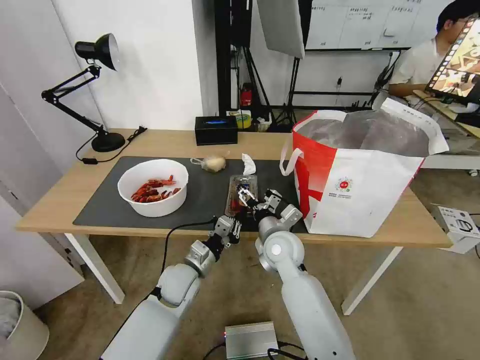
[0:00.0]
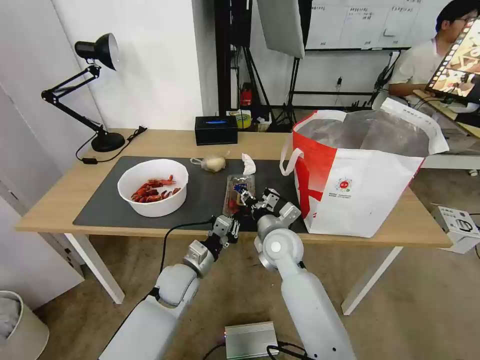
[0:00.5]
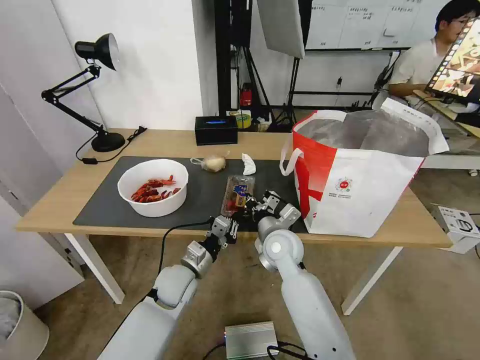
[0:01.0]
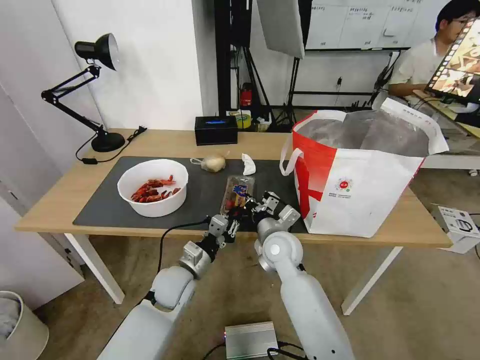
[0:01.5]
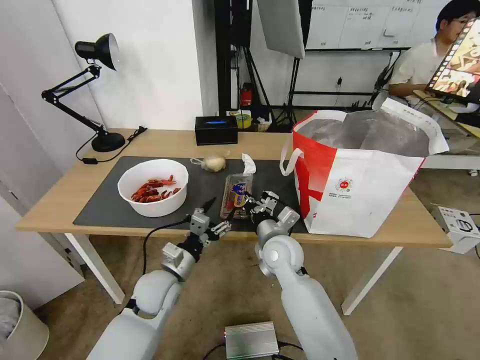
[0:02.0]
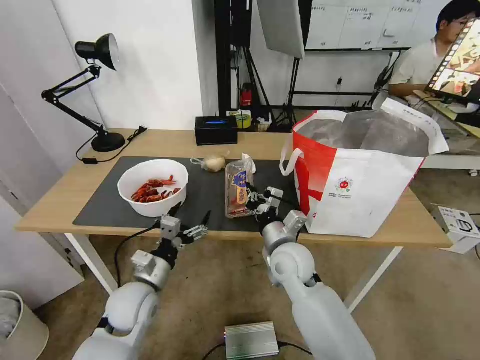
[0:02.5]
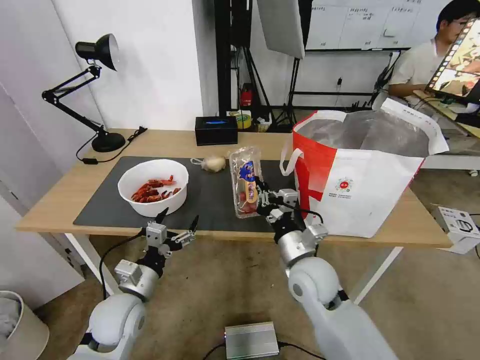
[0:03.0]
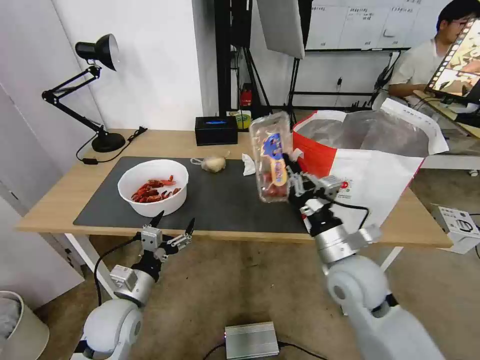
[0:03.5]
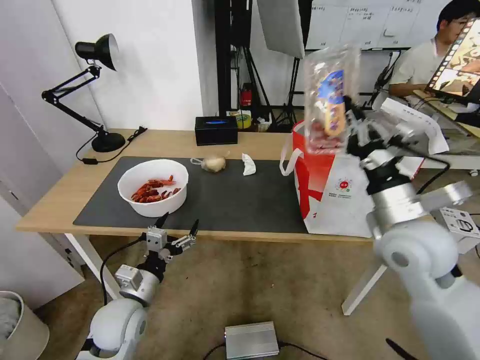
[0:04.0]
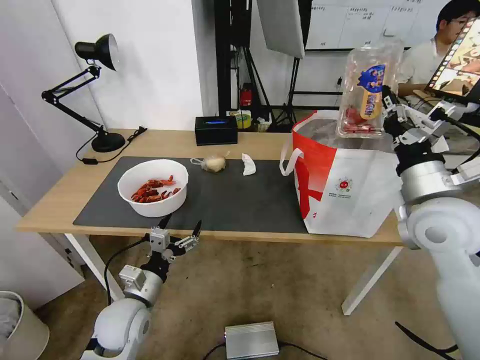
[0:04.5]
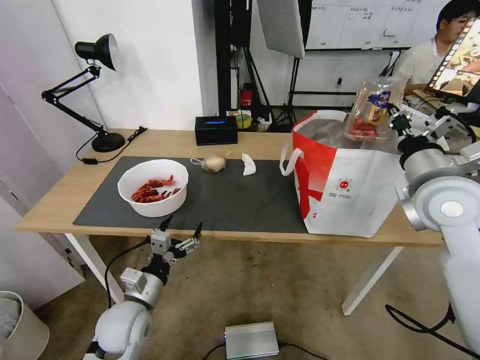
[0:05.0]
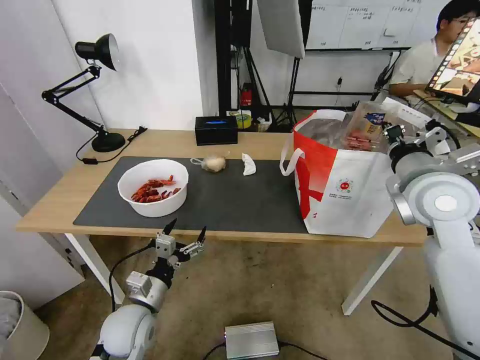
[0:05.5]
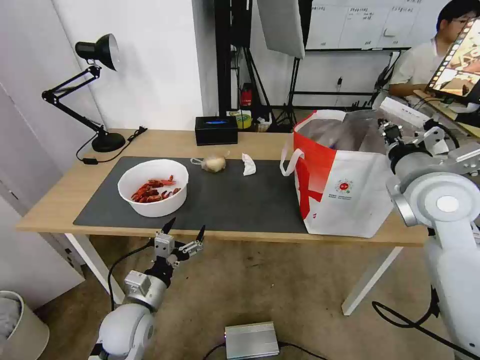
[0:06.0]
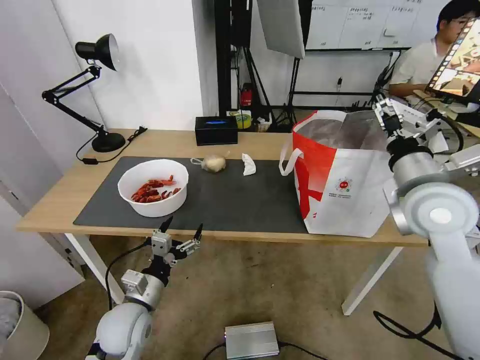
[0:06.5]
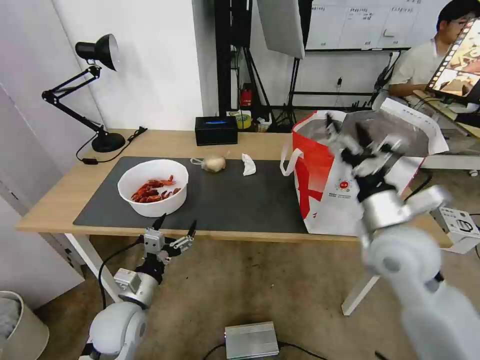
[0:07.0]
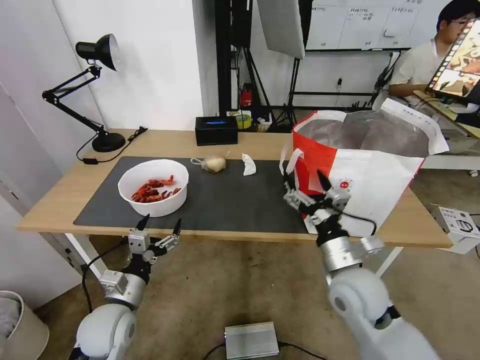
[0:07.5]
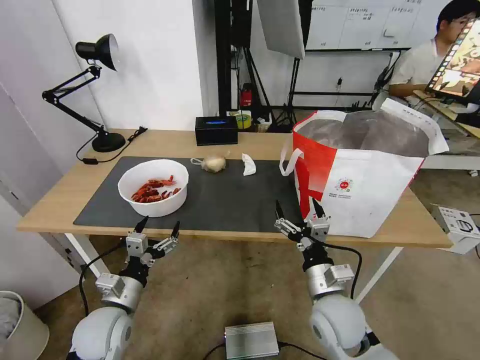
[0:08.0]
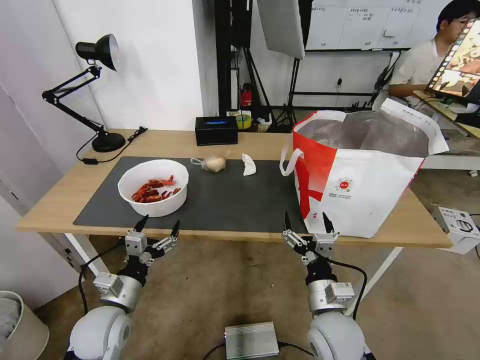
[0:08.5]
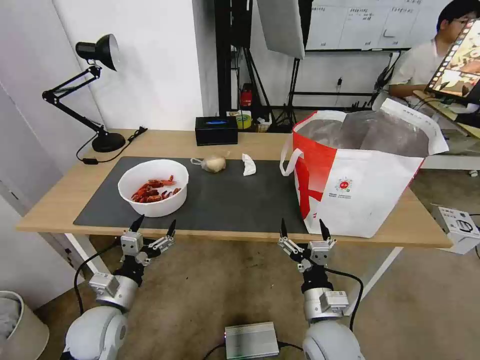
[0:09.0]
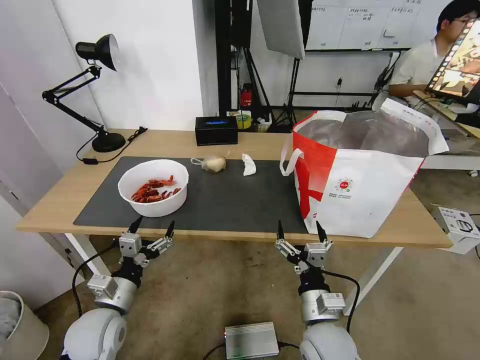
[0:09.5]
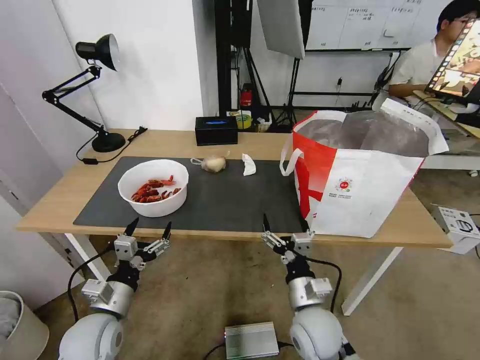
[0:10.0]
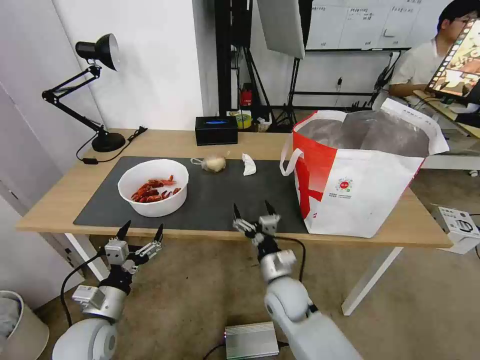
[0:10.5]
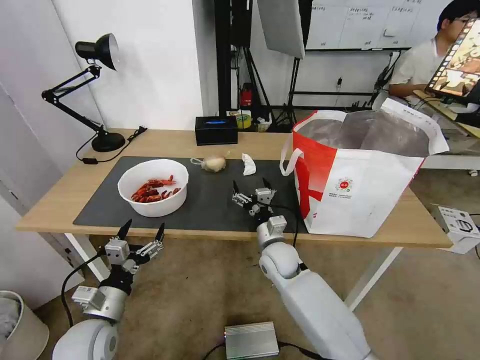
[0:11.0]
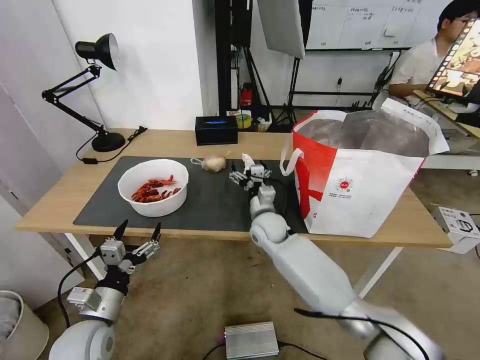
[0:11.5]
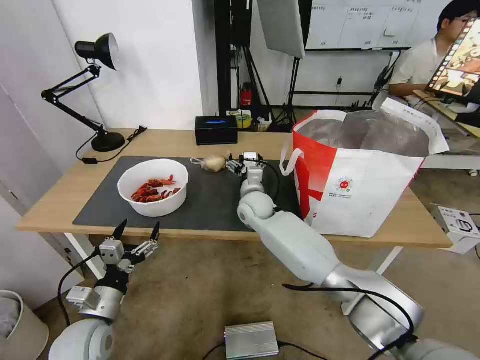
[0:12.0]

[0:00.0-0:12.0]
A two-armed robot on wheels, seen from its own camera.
Task of the whole recording: Pick up the trash from the table and place it into the takeout bag.
0:00.0 to 0:02.0: The right gripper closes its fingers, while the left gripper changes place by roughly 5 cm, and opens.
0:02.0 to 0:04.0: The left gripper shifts approximately 10 cm backward and to the left. Meanwhile the right gripper heads to the right, upward and backward, covering about 25 cm.
0:04.0 to 0:06.0: The right gripper travels upward and forward by about 10 cm.
0:06.0 to 0:08.0: The right gripper travels downward, to the left and backward by approximately 30 cm, and opens its fingers.
0:08.0 to 0:10.0: The right gripper shifts by approximately 5 cm.
0:10.0 to 0:12.0: The right gripper is displaced forward by some 30 cm.

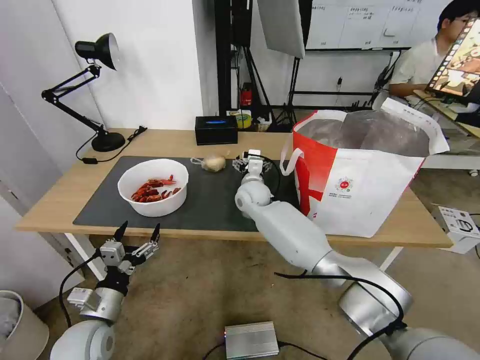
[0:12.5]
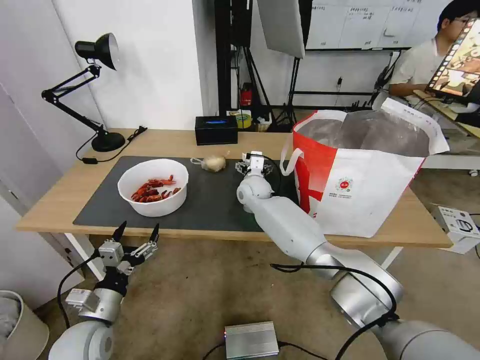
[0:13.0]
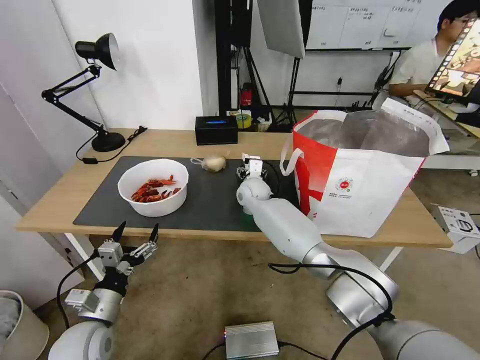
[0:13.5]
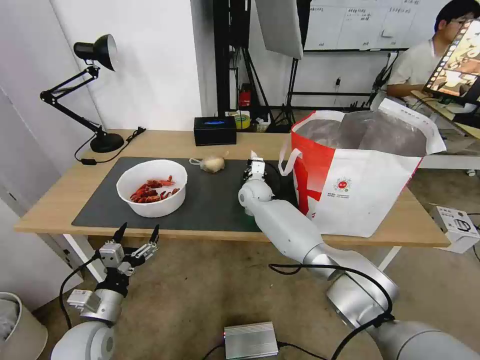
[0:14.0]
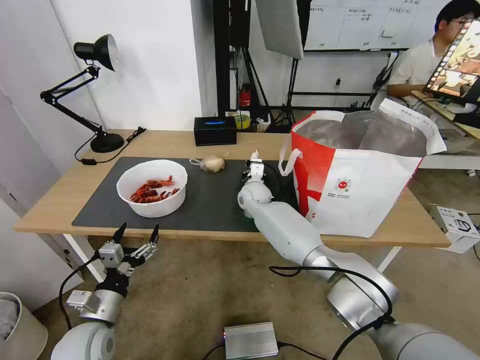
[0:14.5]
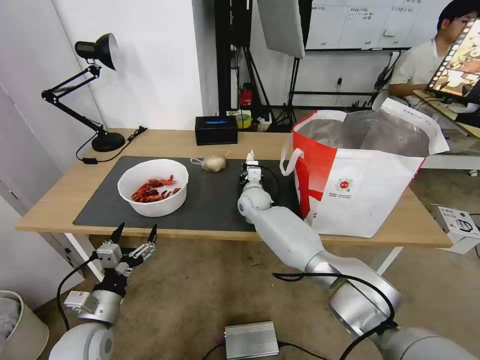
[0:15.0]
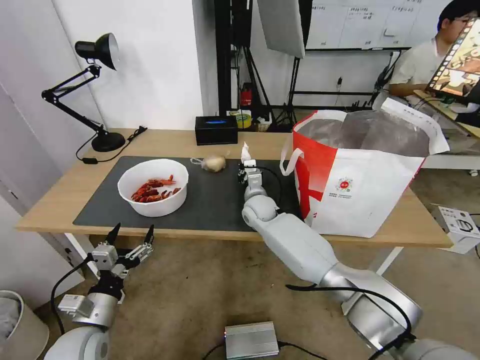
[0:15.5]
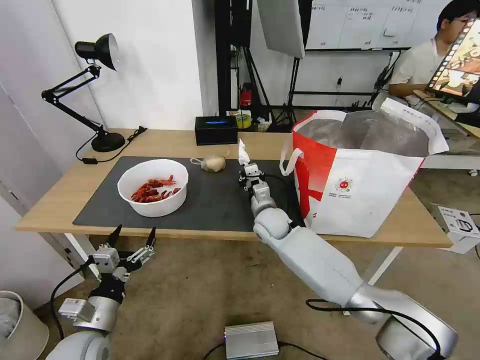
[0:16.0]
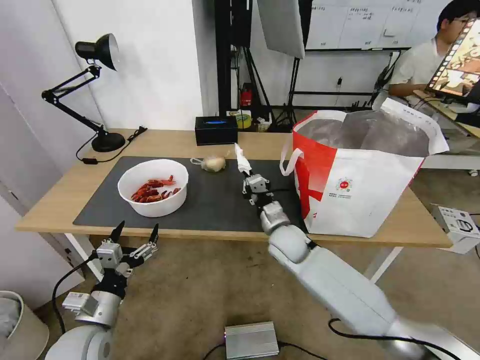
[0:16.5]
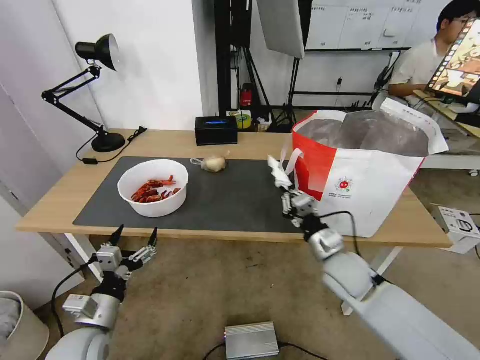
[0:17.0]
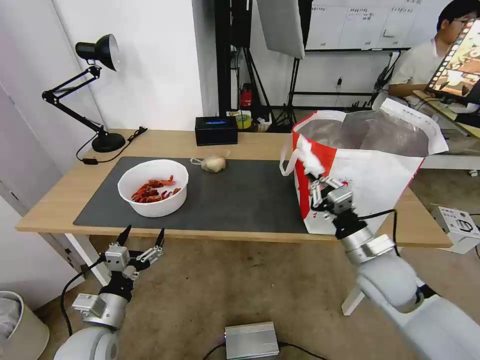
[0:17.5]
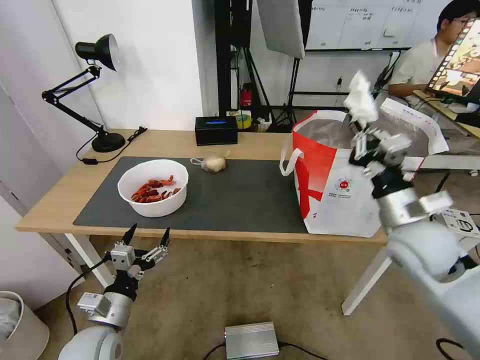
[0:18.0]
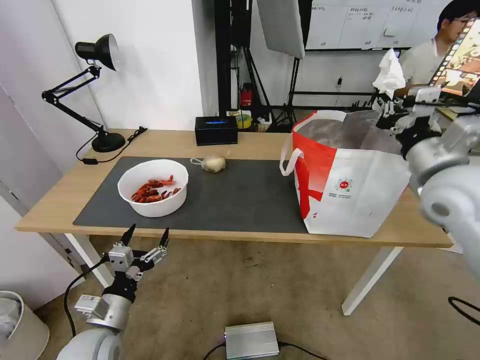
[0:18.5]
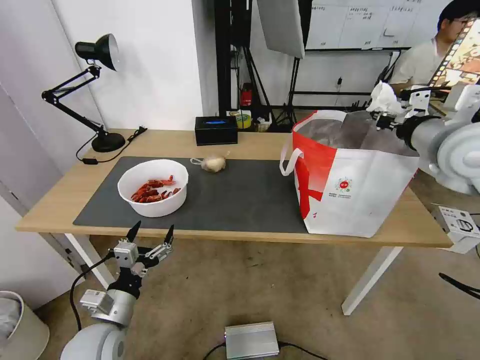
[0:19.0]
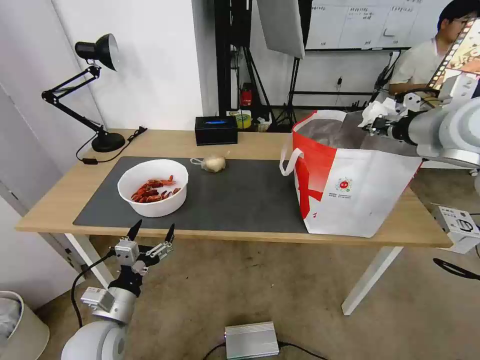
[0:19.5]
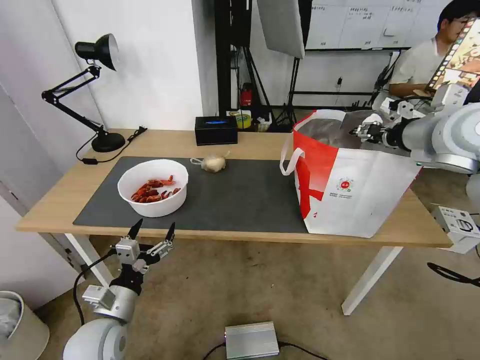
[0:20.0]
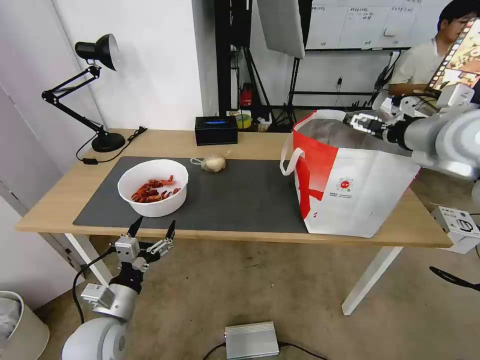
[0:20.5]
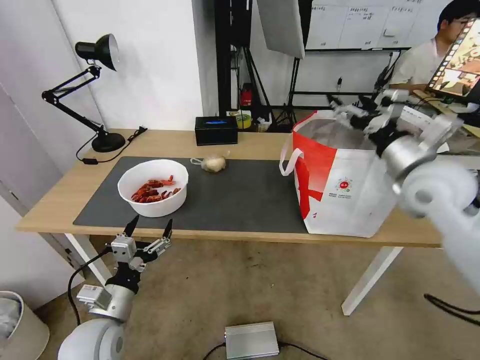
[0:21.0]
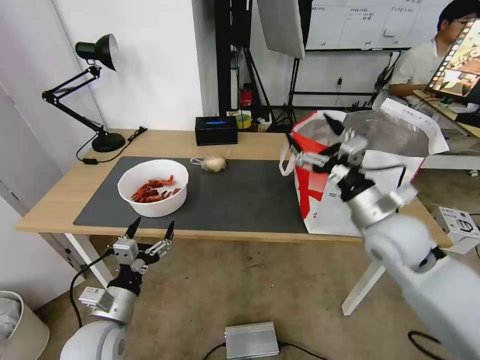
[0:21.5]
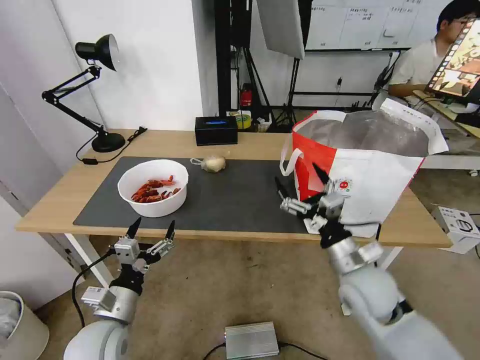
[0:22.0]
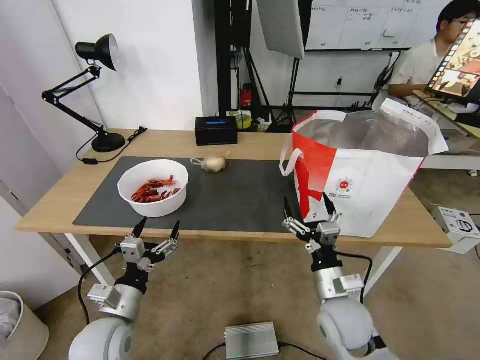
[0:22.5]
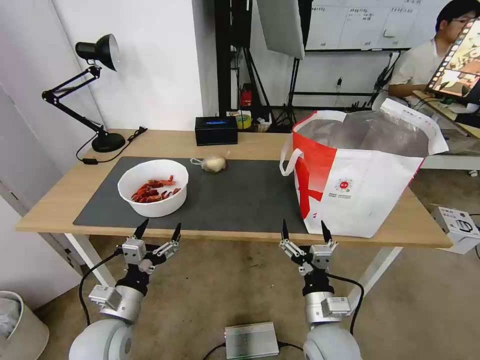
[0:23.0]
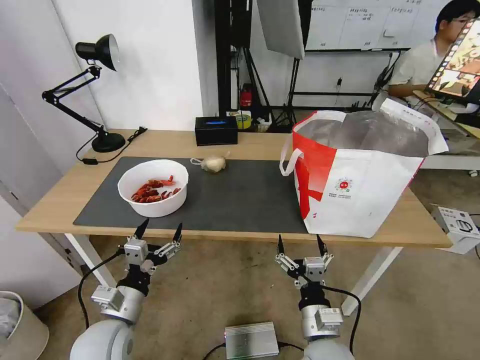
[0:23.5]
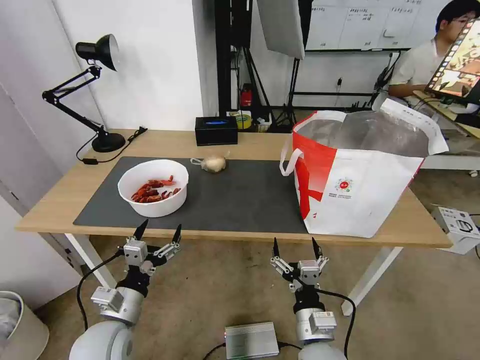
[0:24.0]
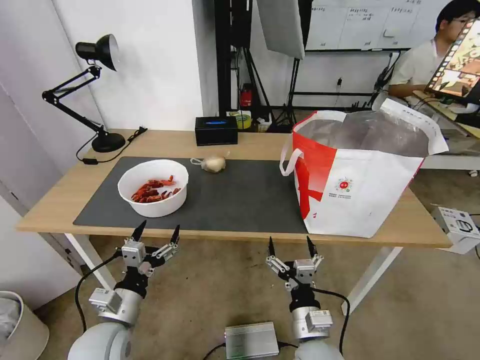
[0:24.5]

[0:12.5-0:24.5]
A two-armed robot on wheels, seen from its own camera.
Task of the whole recording: Pick up the trash from the table and place it into the takeout bag.
0:12.5 to 0:14.5: The right gripper closes its fingers.
0:14.5 to 0:16.5: The right gripper travels backward and to the right by about 15 cm.
0:16.5 to 0:18.5: The right gripper travels upward and to the right by roughly 35 cm.
0:18.5 to 0:20.5: The right gripper moves upward and forward, about 10 cm, and opens.
0:20.5 to 0:22.5: The right gripper shifts approximately 40 cm downward, backward and to the left.
0:22.5 to 0:24.5: The right gripper heads backward and to the left, covering some 10 cm.

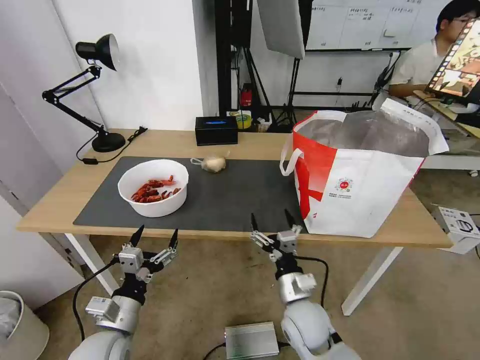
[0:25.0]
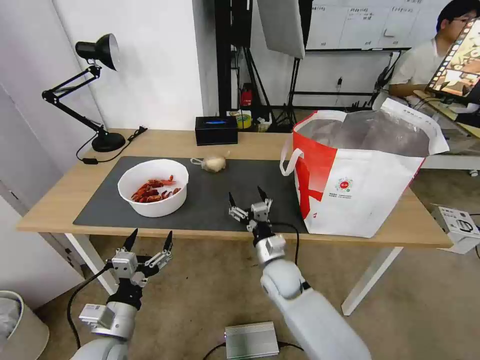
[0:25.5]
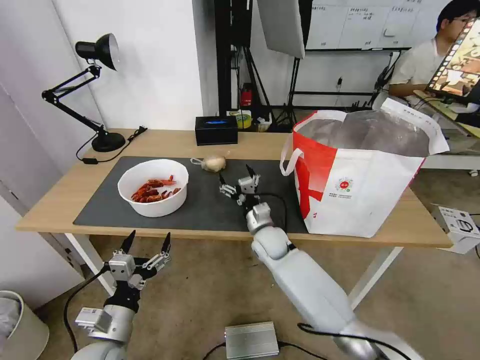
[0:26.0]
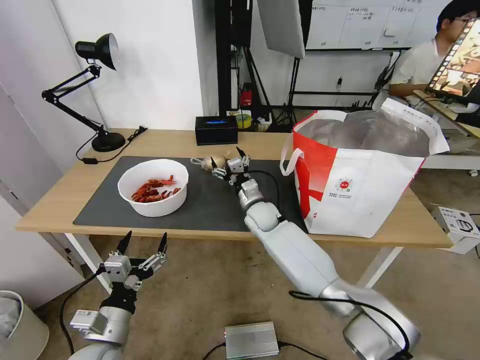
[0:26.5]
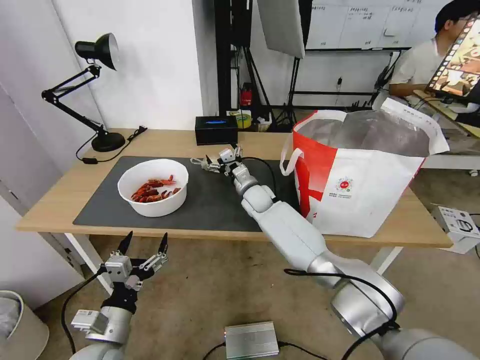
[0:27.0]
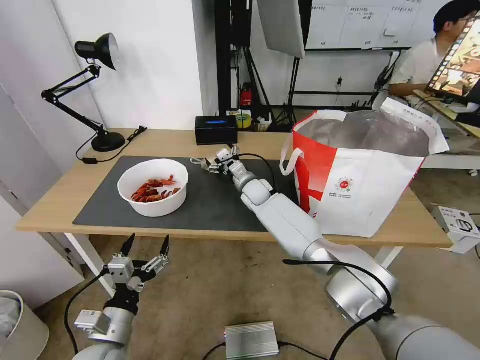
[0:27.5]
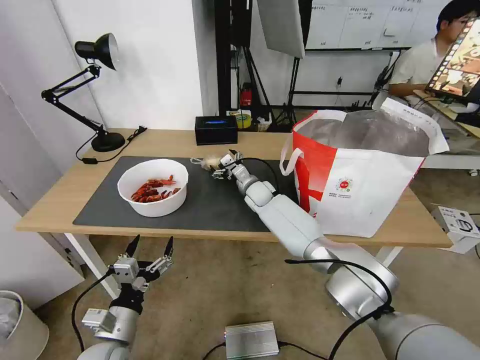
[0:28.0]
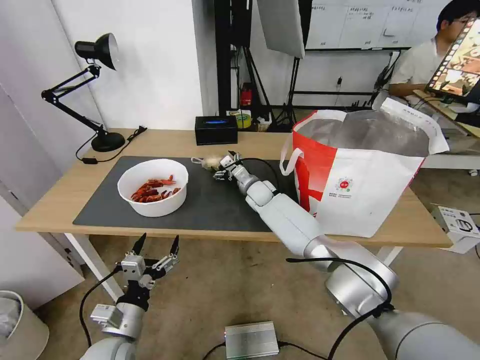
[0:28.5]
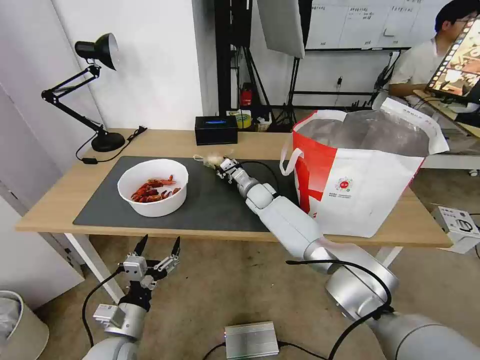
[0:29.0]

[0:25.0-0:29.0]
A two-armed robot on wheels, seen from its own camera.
Task of the whole recording: Pick up the trash from the table and place it into the takeout bag.
0:25.0 to 0:27.0: The right gripper travels forward by some 30 cm.
0:27.0 to 0:29.0: The right gripper closes its fingers.
